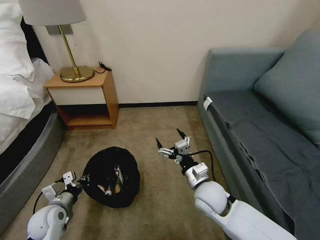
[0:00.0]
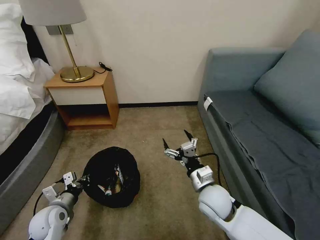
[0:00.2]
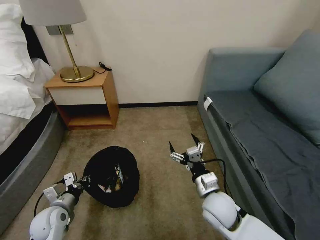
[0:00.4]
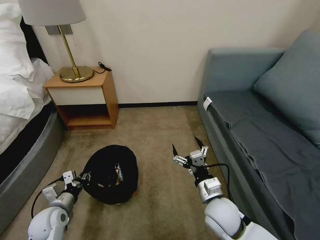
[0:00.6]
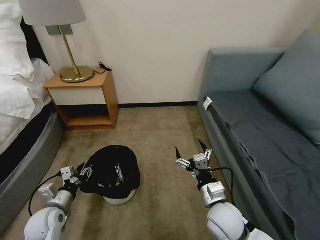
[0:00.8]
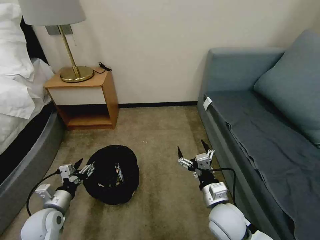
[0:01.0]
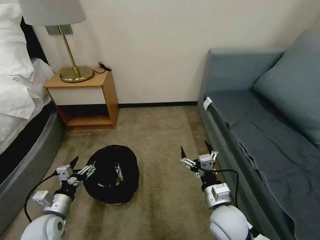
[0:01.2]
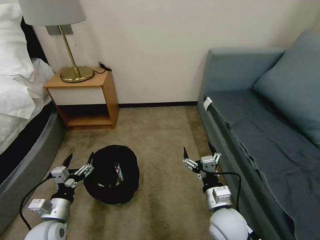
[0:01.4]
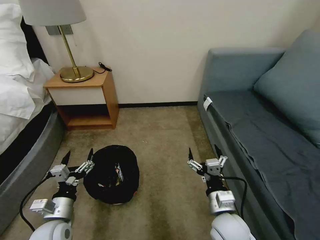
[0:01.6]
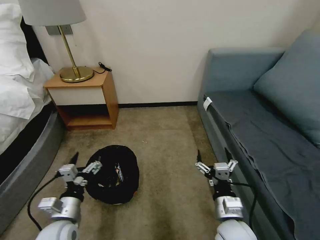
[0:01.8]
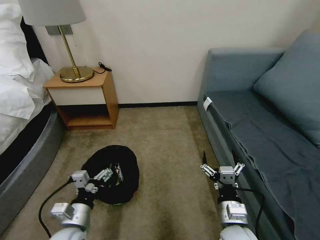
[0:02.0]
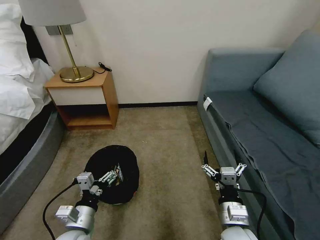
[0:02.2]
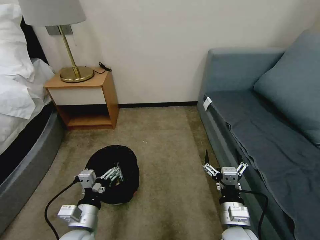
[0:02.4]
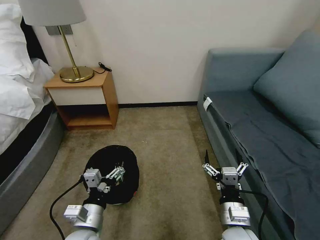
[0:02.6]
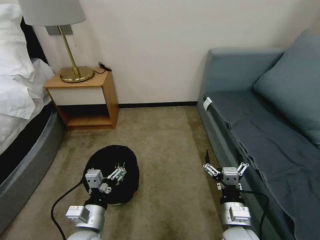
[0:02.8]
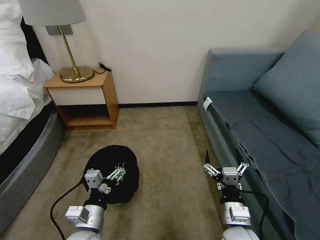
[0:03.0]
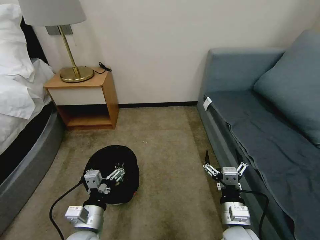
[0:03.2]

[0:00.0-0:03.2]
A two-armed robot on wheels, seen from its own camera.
Task of the whole recording: Pick up the trash bin, then pick up the garbage on the floor and place it into the trash bin.
0:00.0 to 0:01.6: The right gripper heads backward, covering approximately 10 cm. The left gripper is displaced to the right and backward by approximately 10 cm, and opens its fingers.
0:01.6 to 0:03.2: The left gripper moves to the right, roughly 10 cm.

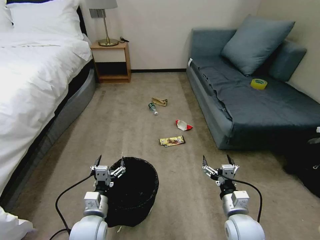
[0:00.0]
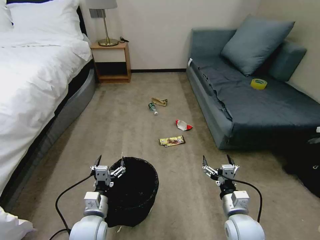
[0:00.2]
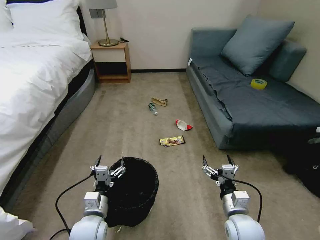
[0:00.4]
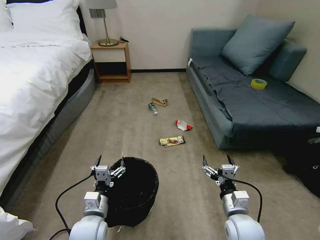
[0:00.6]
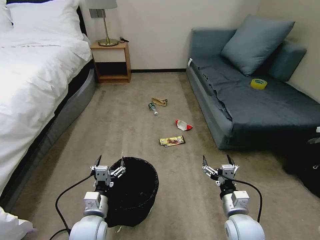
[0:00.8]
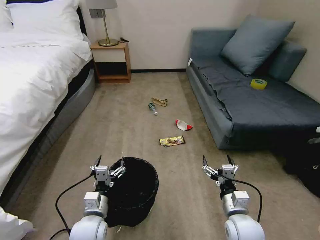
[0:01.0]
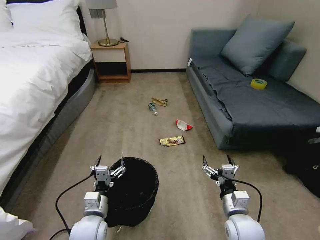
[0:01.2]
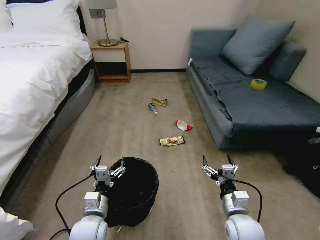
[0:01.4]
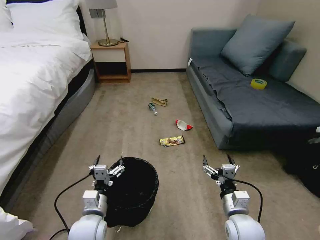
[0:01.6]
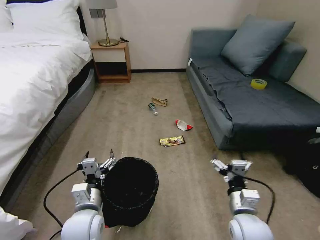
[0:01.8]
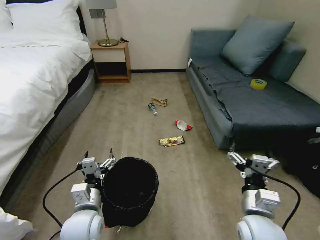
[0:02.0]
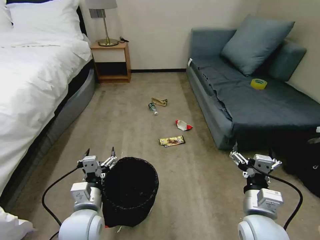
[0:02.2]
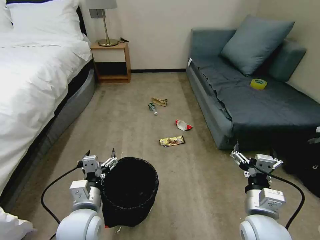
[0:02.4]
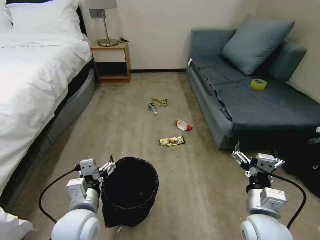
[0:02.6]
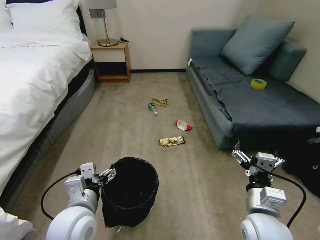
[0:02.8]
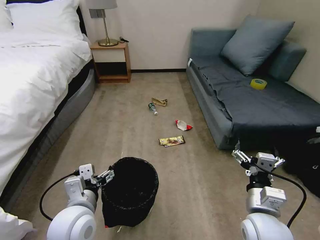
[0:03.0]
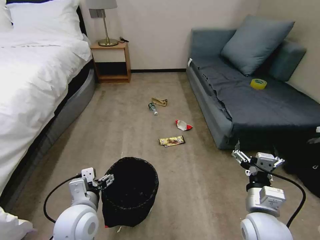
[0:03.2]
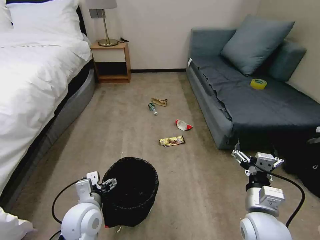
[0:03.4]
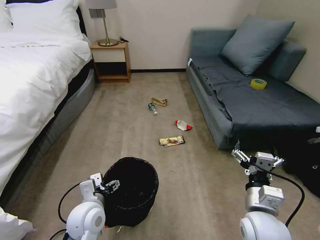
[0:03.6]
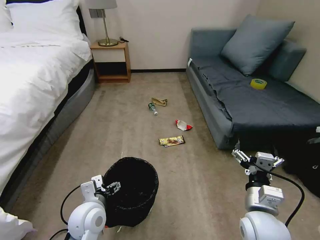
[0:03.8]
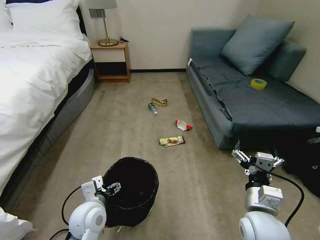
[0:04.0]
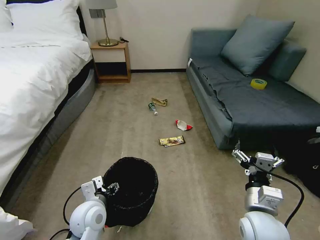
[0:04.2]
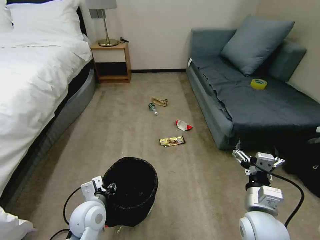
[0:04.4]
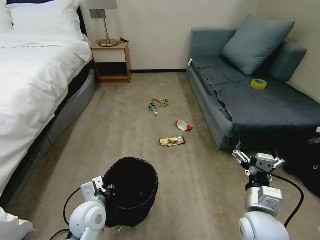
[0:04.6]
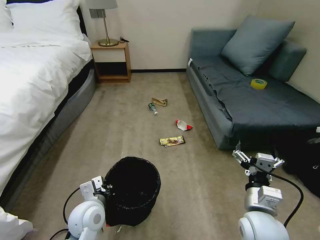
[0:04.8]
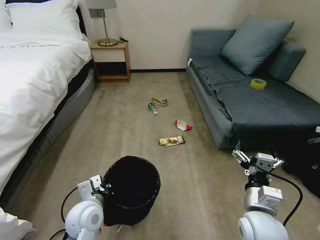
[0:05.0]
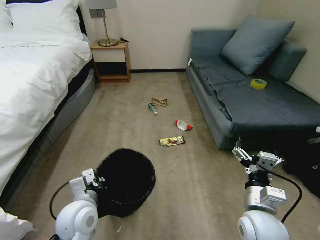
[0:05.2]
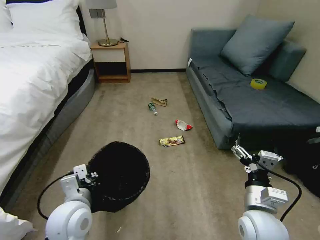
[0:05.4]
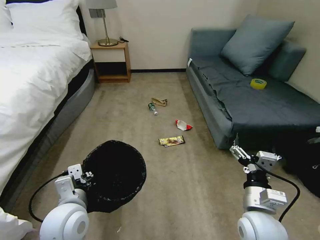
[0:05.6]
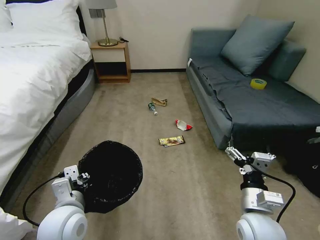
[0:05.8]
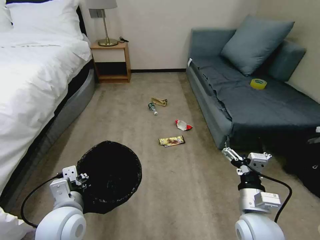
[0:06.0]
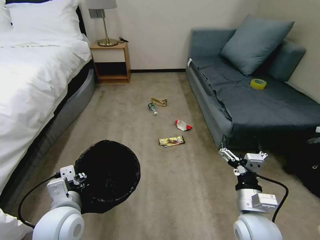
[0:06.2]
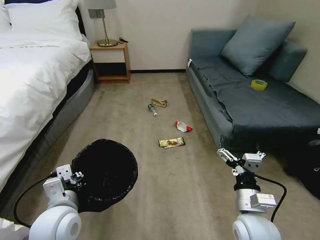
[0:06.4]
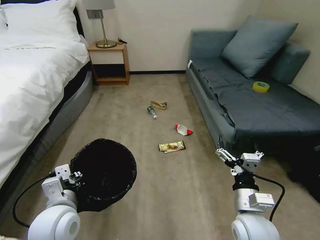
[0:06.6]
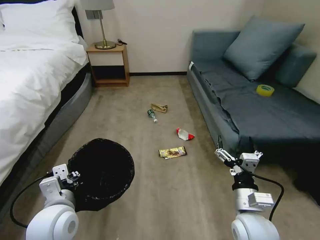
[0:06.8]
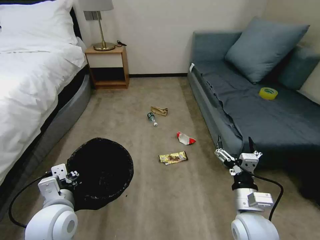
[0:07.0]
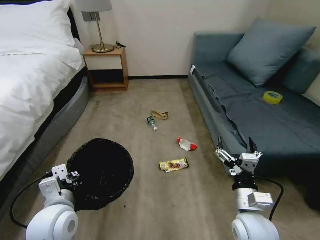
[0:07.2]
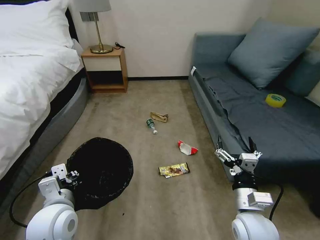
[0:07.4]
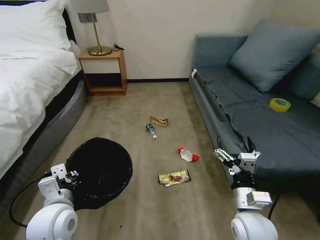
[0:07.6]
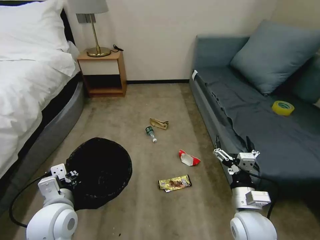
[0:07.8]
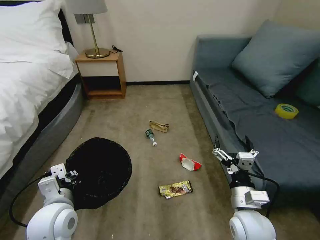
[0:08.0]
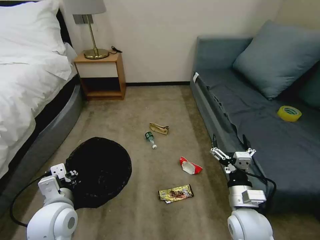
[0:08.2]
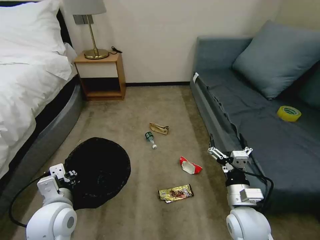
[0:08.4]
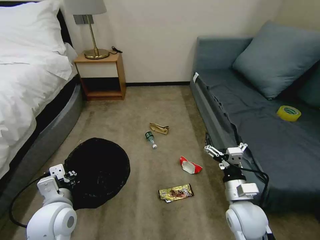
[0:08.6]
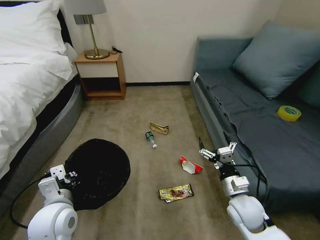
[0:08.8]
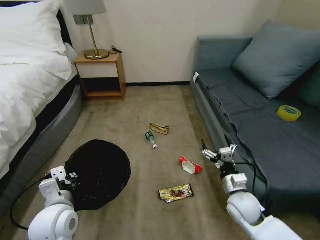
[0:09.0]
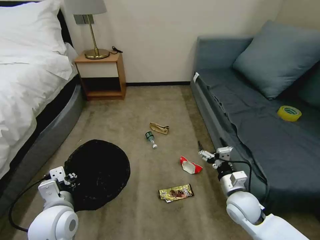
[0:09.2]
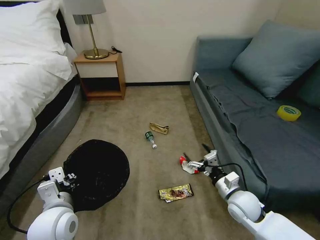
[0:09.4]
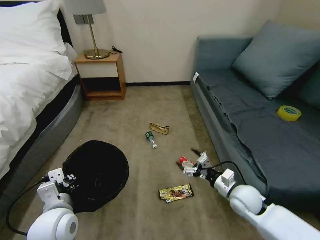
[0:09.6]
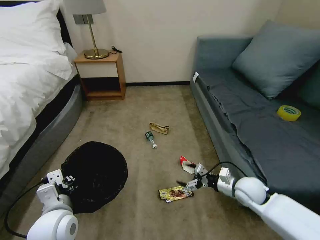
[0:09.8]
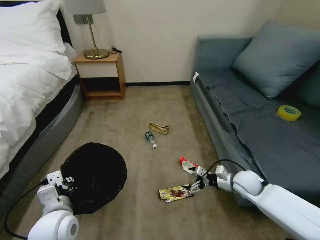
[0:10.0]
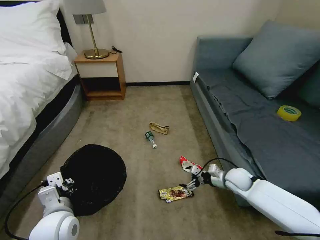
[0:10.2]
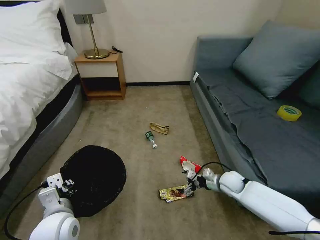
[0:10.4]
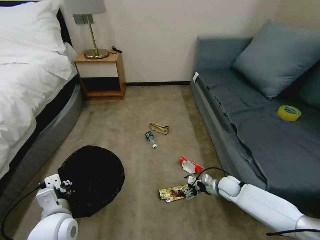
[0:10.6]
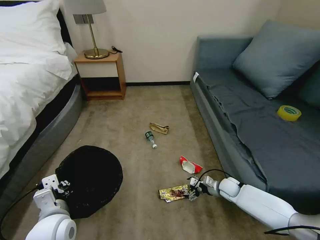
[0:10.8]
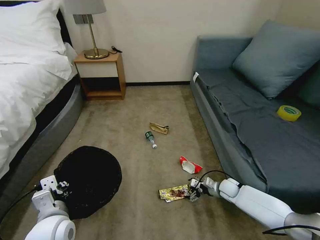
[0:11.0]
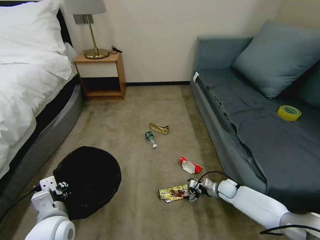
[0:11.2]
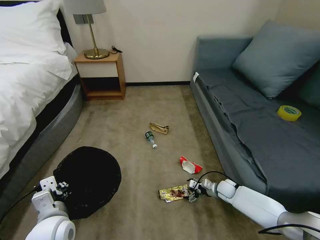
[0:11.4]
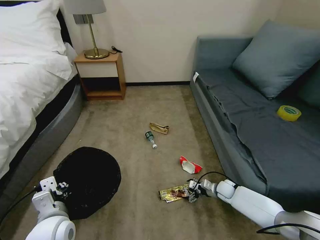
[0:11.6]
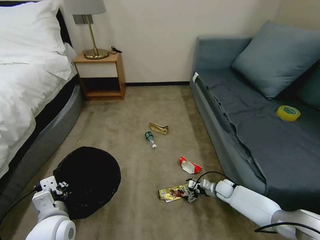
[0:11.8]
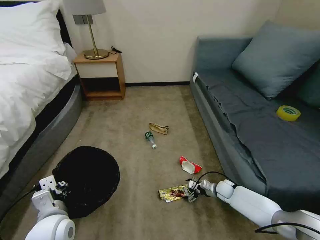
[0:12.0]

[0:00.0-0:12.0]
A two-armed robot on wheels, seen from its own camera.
Task of the whole recording: Pick up the trash bin, then pick up the garbage on the floor and place it into the trash bin.
0:01.6 to 0:03.0: The grippers both shift upward by roughly 10 cm.
0:03.0 to 0:04.4: The left gripper shifts some 10 cm downward, and closes up.
0:04.4 to 0:06.0: The left gripper is displaced upward by about 10 cm, and closes.
0:07.6 to 0:09.0: The right gripper moves forward and downward, roughly 10 cm.
0:09.0 to 0:10.4: The right gripper is displaced forward and downward by approximately 15 cm.
0:10.4 to 0:12.0: The right gripper heads downward, covering roughly 10 cm.

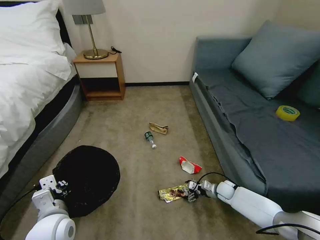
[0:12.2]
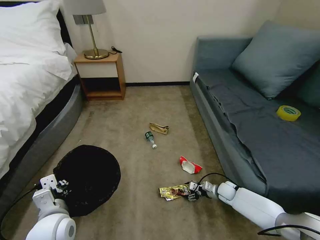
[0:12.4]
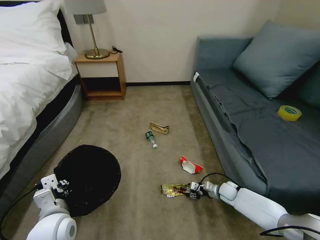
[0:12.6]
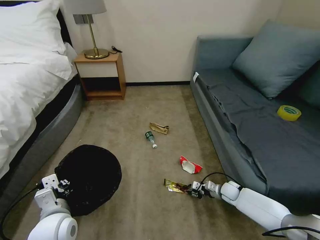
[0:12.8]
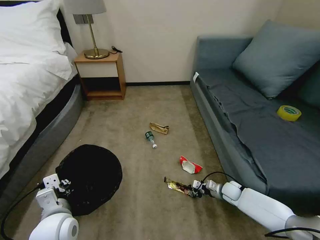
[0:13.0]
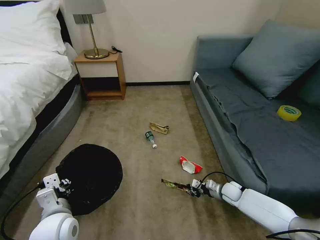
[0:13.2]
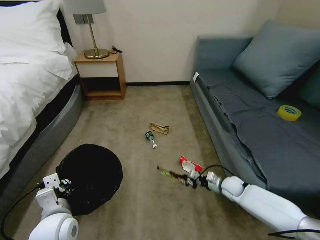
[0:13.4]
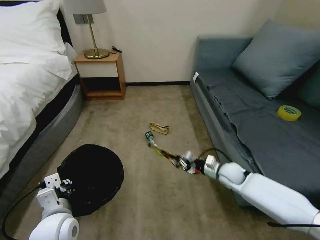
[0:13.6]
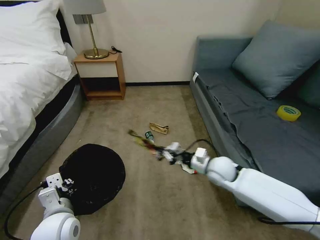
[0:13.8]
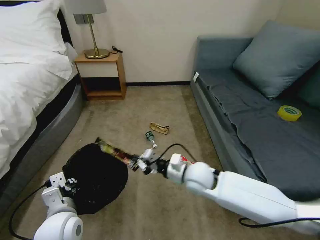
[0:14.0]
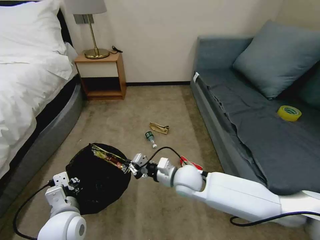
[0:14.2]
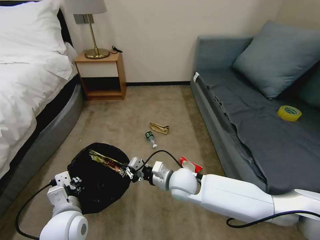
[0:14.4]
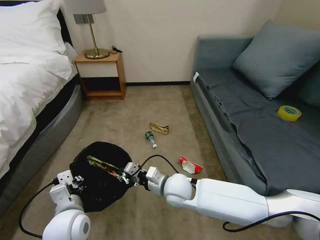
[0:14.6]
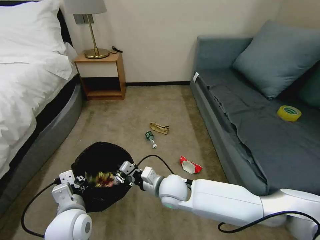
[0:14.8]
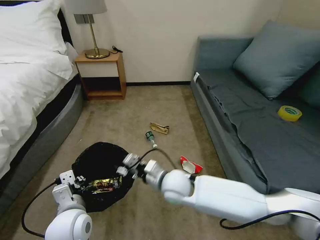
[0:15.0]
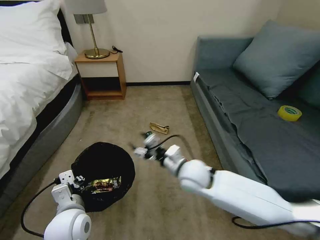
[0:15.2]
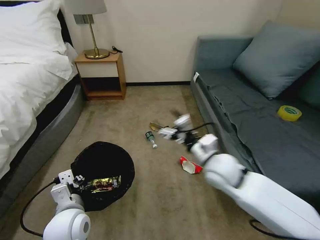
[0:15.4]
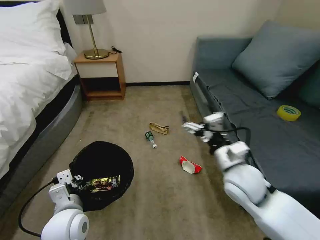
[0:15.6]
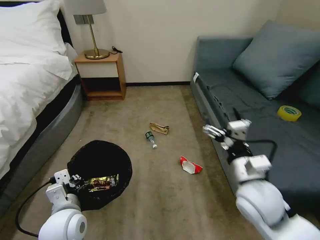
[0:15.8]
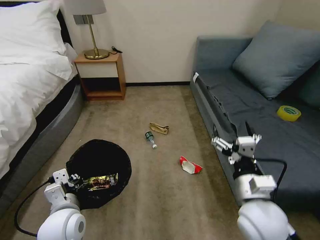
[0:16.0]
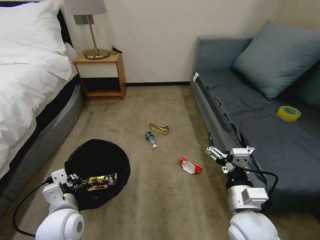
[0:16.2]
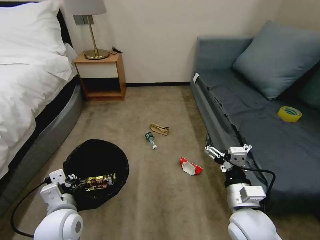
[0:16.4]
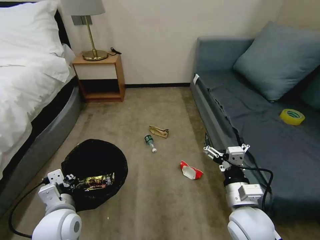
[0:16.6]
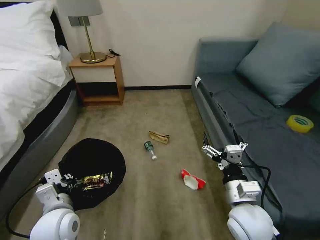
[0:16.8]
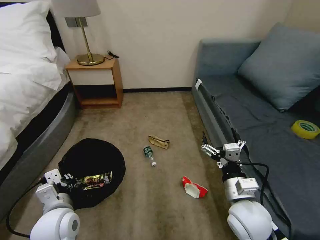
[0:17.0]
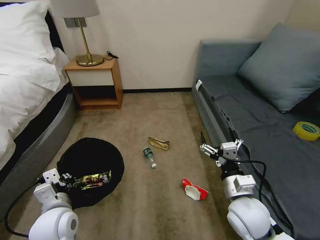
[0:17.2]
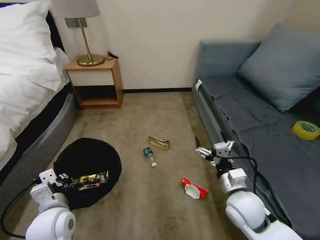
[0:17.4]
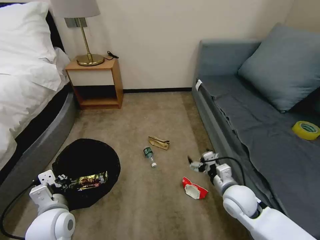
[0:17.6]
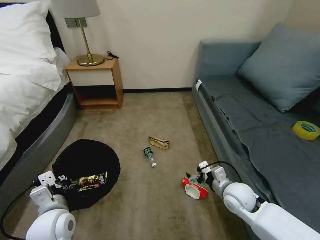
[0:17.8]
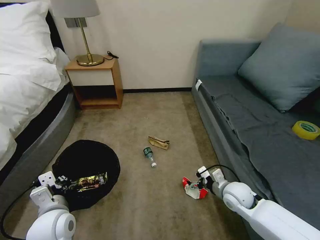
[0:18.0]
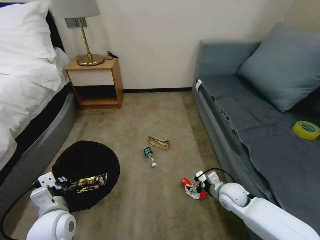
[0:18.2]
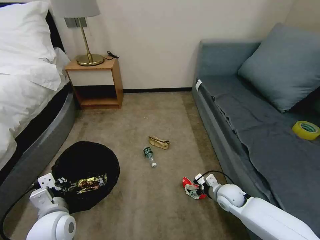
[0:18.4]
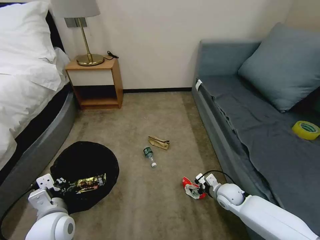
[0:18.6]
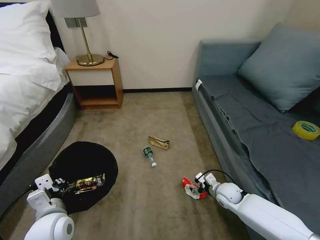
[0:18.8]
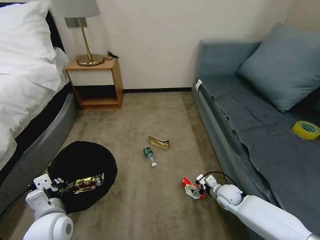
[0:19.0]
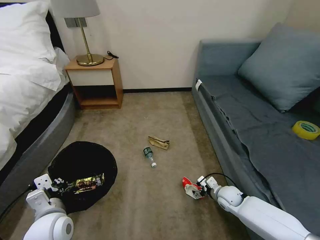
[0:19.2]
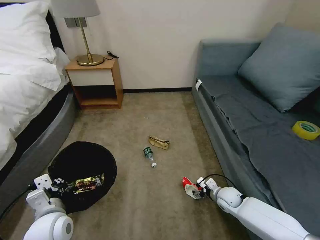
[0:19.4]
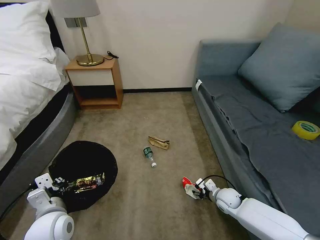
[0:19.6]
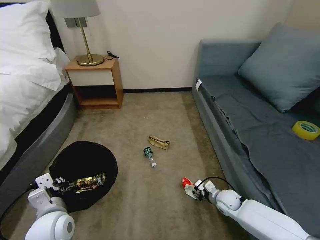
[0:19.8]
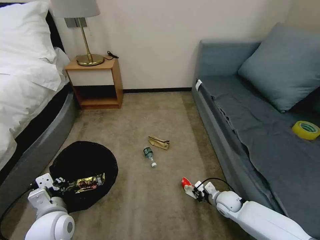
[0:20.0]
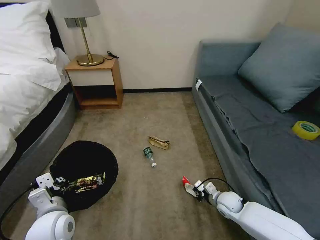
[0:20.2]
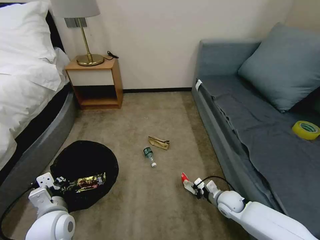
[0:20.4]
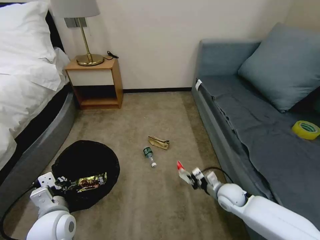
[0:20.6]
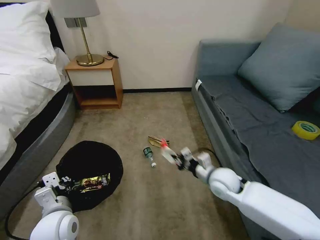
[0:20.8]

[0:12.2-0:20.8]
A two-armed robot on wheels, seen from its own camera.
Task of the whole recording: Pick up the trash bin, then pick up the garbage on the floor and place it into the trash bin.
0:12.2 to 0:13.6: The right gripper moves upward, some 10 cm, and closes.
0:13.6 to 0:15.0: The right gripper shifts roughly 30 cm to the left and upward, and opens up.
0:15.0 to 0:16.6: The right gripper travels to the right and backward by approximately 20 cm, and opens.
0:16.6 to 0:18.0: The right gripper travels forward, downward and to the right by approximately 15 cm.
0:18.0 to 0:19.4: The right gripper shifts roughly 10 cm downward.
0:19.4 to 0:20.8: The right gripper goes about 20 cm upward and to the left, and closes up.
